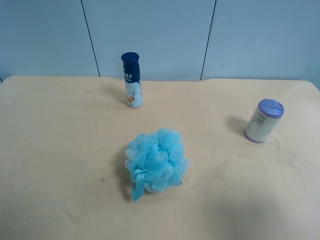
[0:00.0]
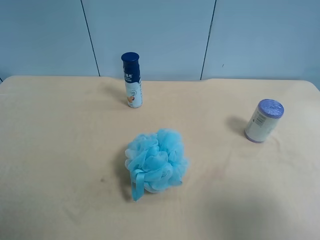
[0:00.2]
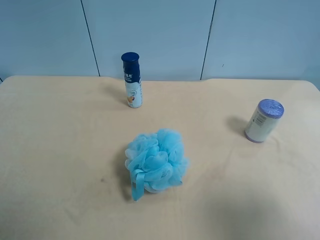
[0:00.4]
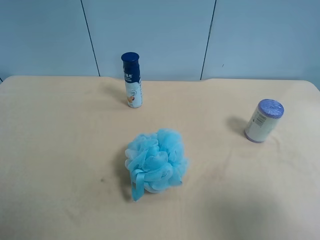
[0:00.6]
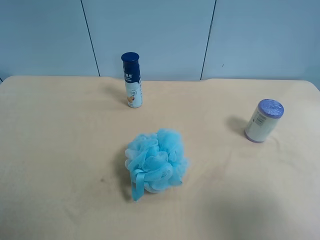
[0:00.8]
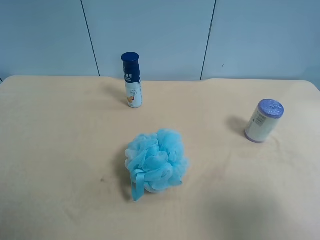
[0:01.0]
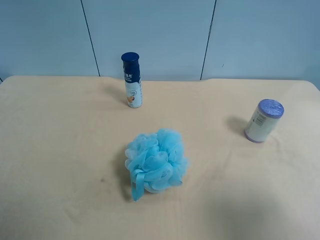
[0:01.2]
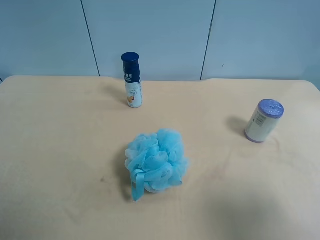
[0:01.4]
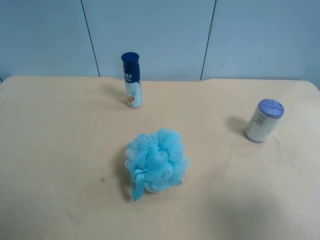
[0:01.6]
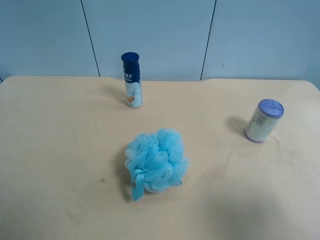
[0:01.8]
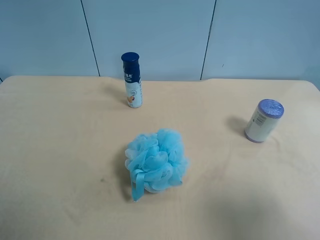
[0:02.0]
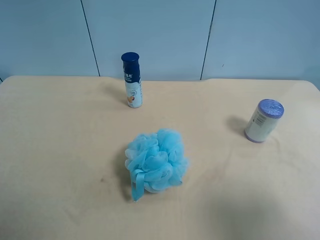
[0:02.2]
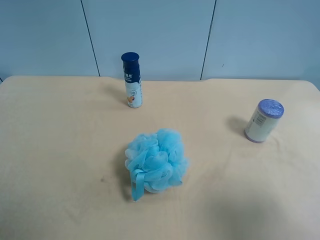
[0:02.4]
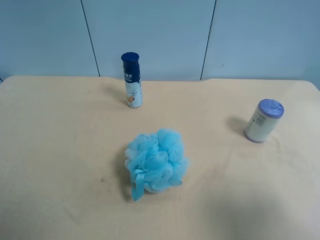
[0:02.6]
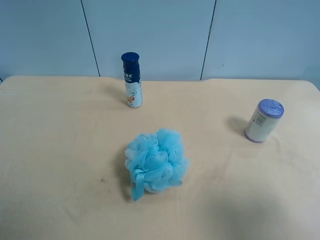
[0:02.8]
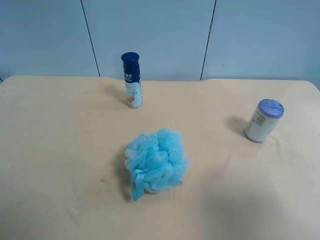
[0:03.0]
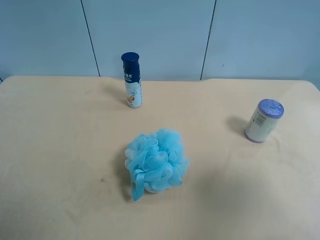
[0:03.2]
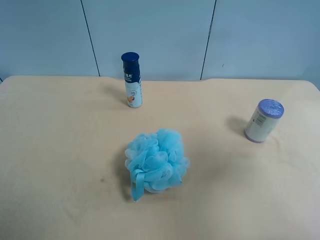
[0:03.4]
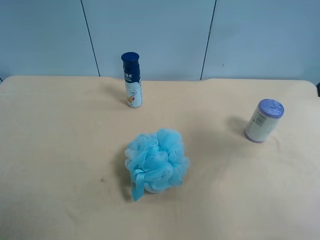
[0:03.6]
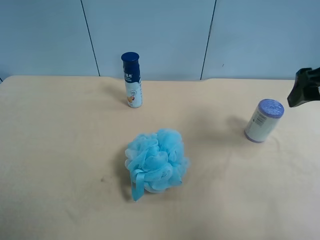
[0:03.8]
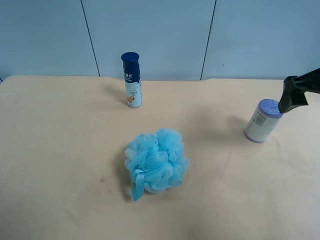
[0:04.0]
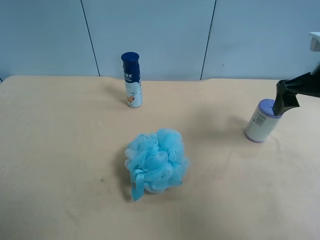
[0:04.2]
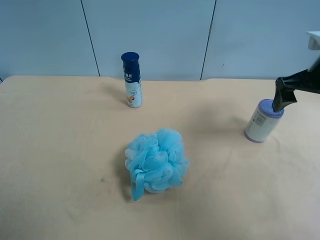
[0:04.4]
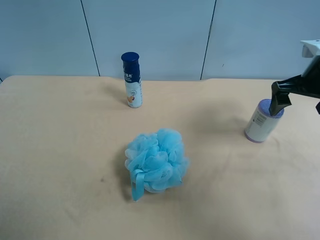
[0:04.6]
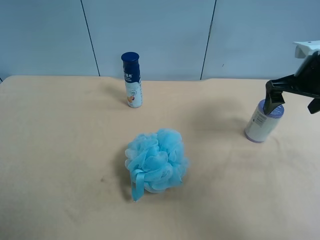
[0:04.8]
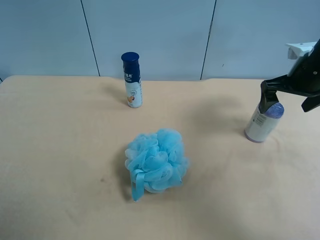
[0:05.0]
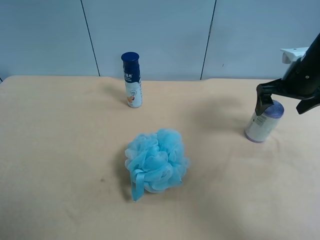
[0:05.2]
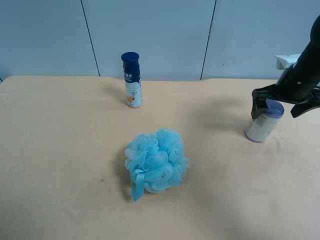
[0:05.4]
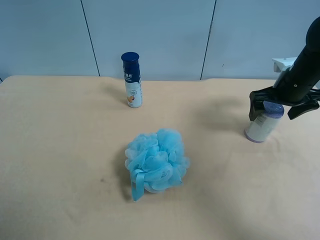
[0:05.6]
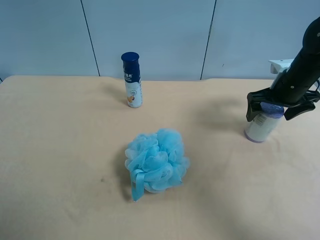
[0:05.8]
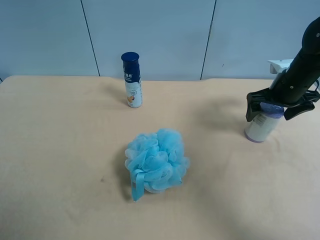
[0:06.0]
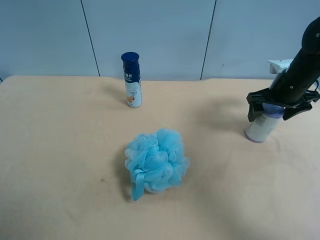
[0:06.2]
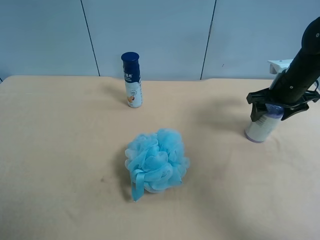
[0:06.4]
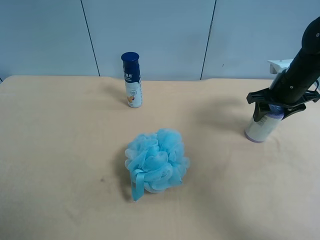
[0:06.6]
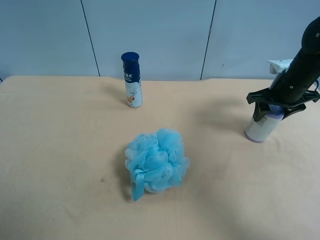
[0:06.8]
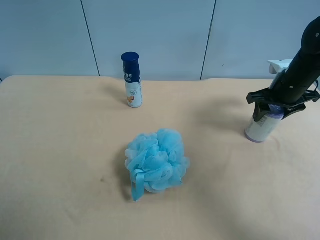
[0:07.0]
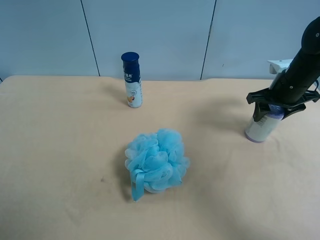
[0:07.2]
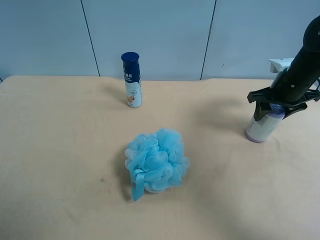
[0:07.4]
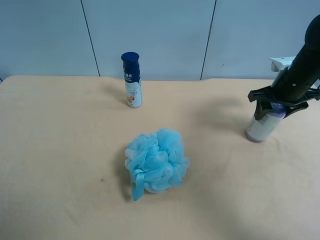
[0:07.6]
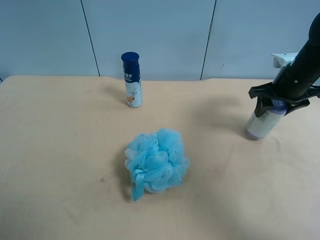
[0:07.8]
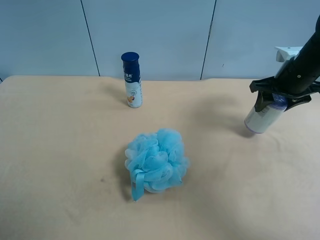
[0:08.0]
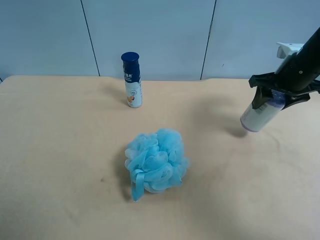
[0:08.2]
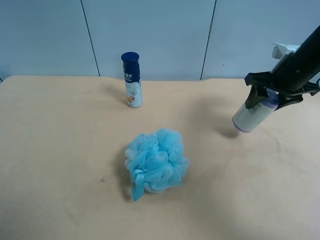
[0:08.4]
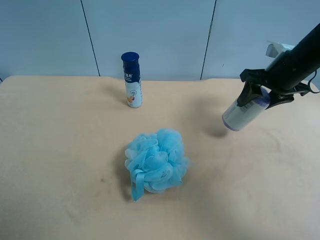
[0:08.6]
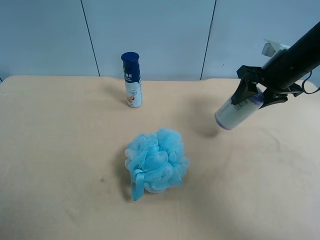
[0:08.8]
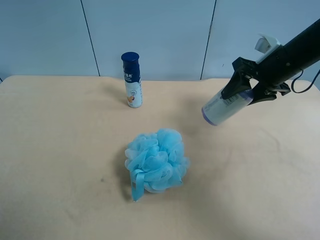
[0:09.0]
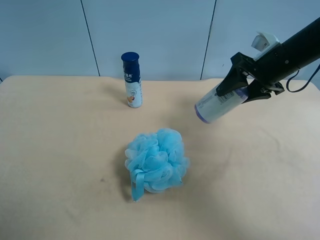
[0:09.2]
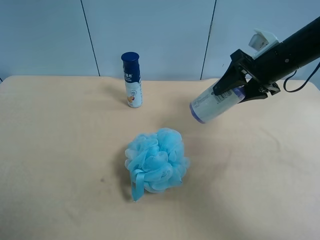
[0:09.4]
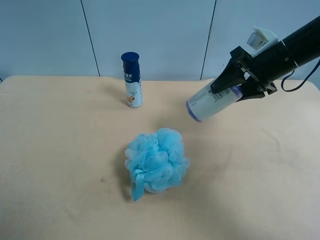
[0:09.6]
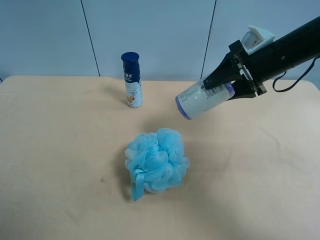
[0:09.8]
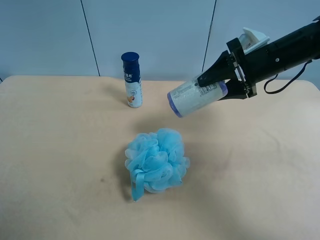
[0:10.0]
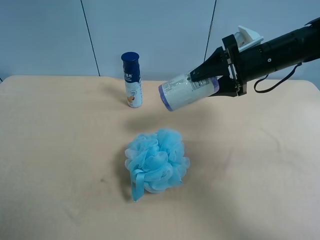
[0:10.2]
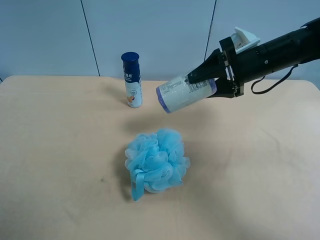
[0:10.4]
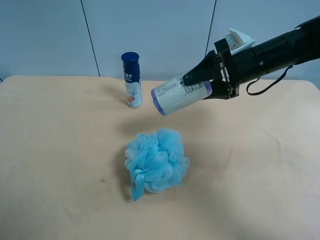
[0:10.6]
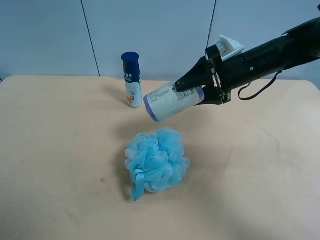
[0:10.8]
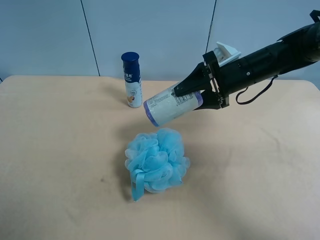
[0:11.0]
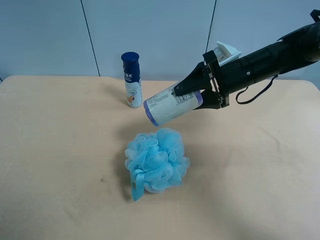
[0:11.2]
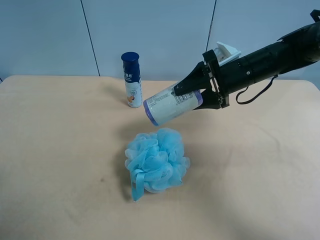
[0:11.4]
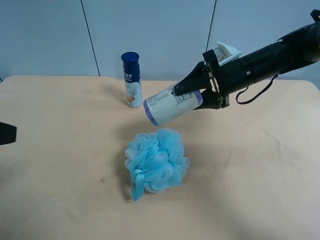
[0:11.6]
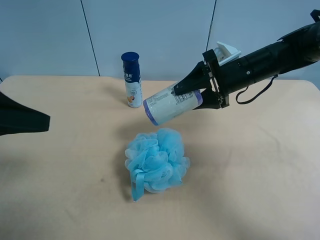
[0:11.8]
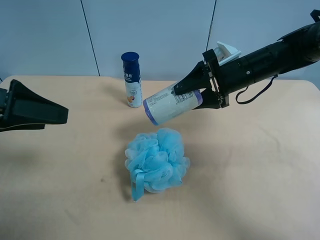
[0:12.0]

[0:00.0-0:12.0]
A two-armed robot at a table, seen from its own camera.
Task of the whole recording: use the right gripper to pick up the item and transfer it from the right gripper to the left gripper.
0:00.0 to 0:01.6: The two grippers keep their place.
0:03.0 to 0:04.4: The right gripper heads forward, covering some 25 cm.
0:04.4 to 0:06.0: The right gripper heads downward and forward, covering approximately 10 cm.
0:06.0 to 0:07.6: The right gripper closes its fingers.
0:07.6 to 0:09.0: The right gripper moves some 5 cm.
0:10.4 to 0:12.0: The left gripper shifts roughly 20 cm forward.

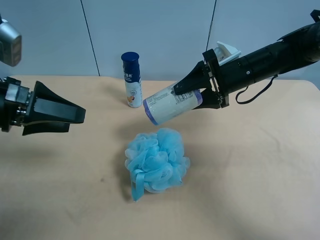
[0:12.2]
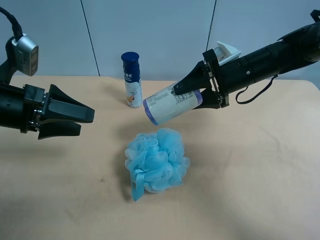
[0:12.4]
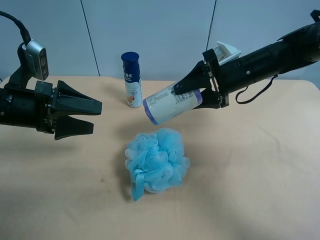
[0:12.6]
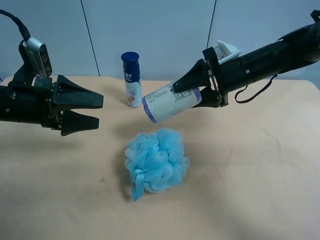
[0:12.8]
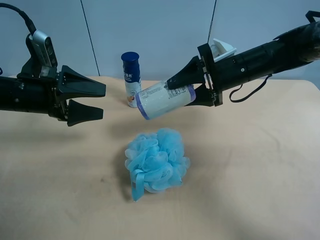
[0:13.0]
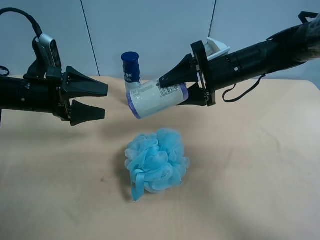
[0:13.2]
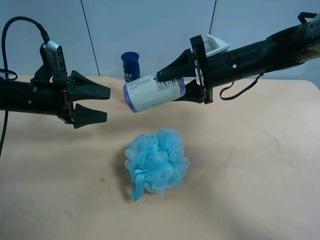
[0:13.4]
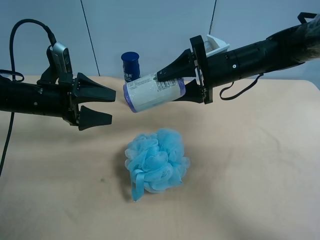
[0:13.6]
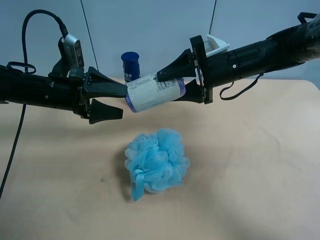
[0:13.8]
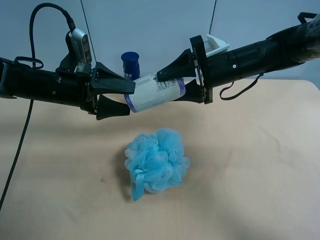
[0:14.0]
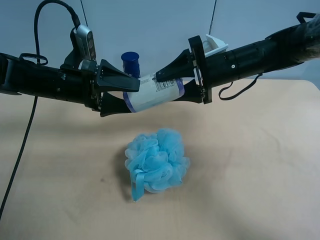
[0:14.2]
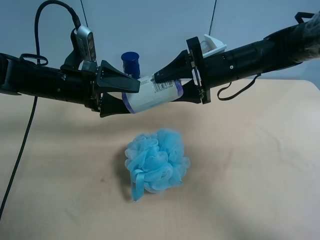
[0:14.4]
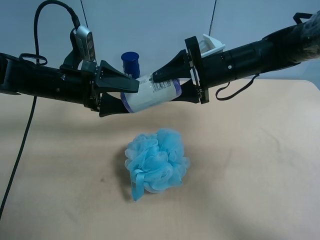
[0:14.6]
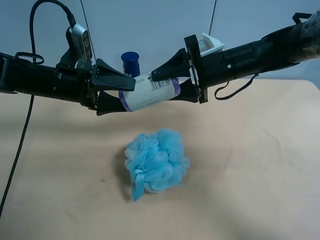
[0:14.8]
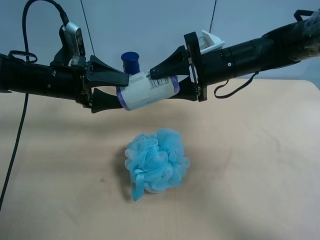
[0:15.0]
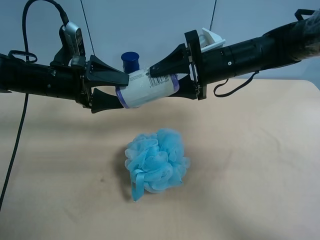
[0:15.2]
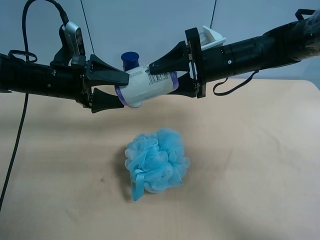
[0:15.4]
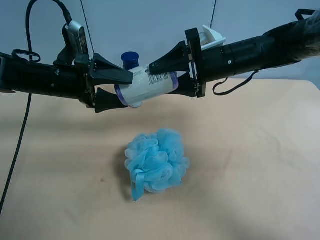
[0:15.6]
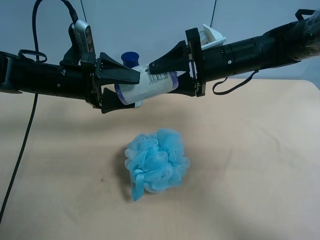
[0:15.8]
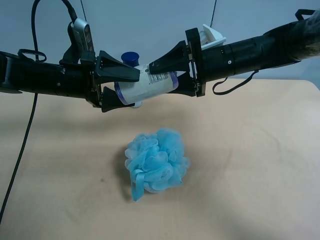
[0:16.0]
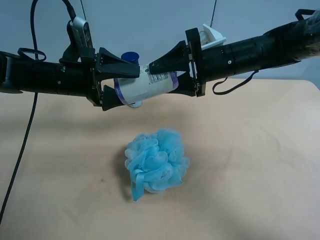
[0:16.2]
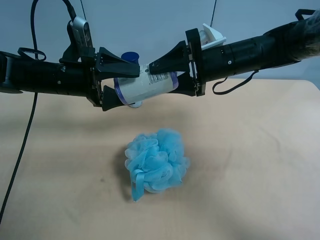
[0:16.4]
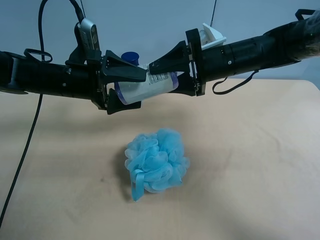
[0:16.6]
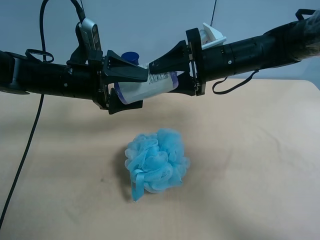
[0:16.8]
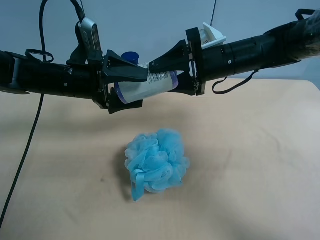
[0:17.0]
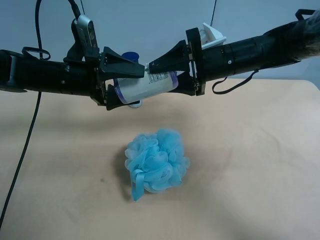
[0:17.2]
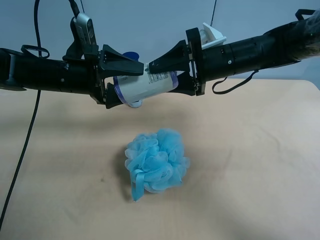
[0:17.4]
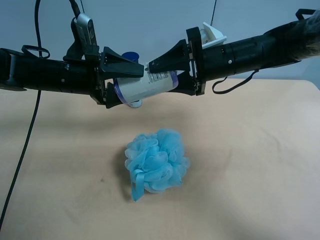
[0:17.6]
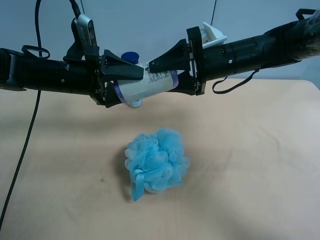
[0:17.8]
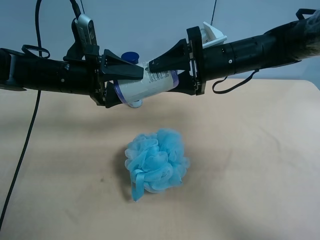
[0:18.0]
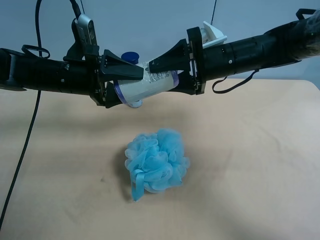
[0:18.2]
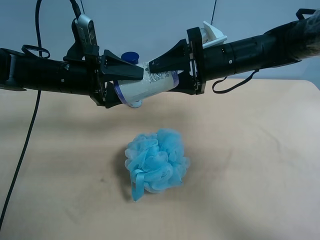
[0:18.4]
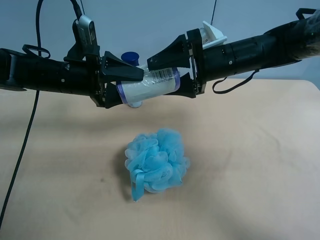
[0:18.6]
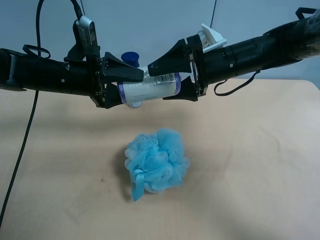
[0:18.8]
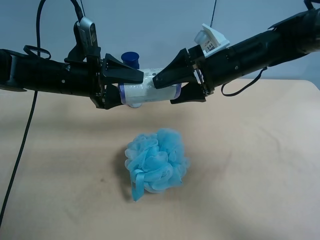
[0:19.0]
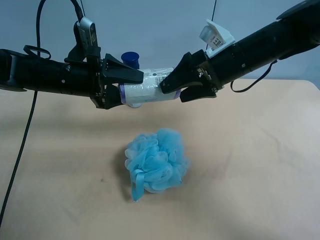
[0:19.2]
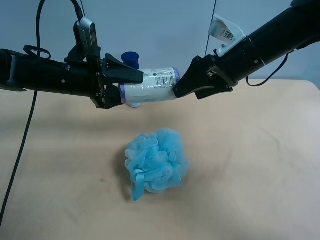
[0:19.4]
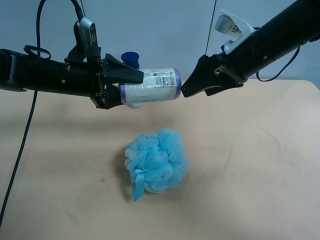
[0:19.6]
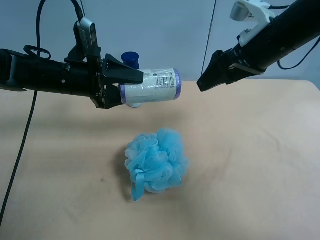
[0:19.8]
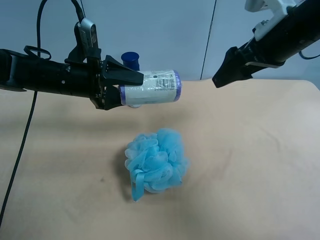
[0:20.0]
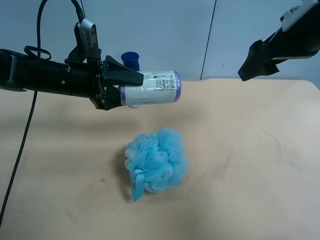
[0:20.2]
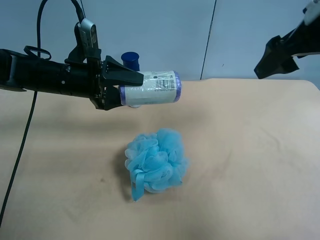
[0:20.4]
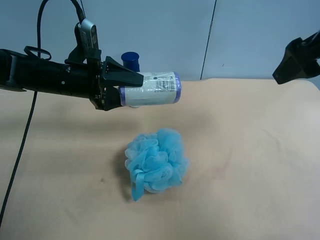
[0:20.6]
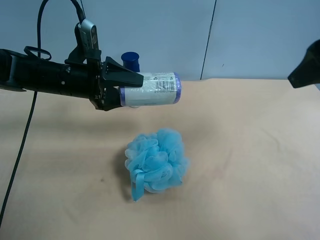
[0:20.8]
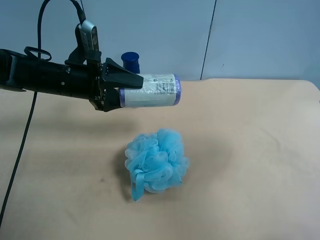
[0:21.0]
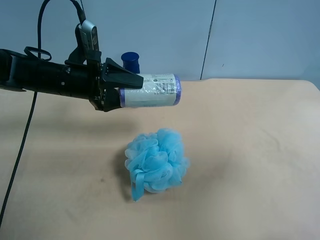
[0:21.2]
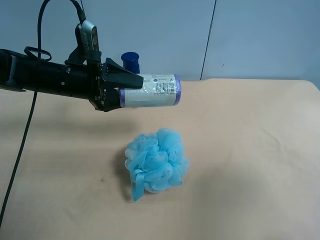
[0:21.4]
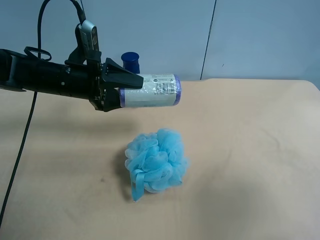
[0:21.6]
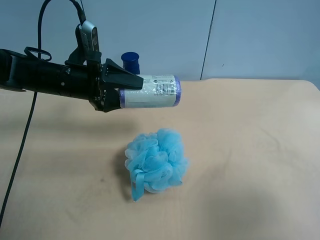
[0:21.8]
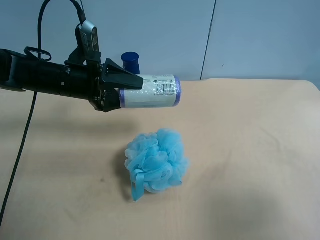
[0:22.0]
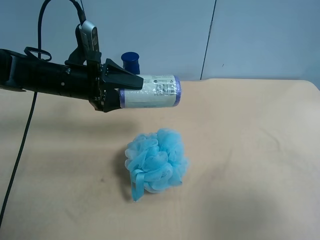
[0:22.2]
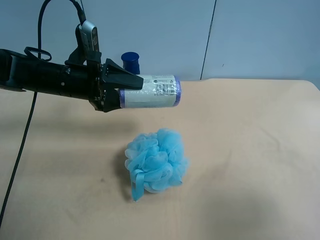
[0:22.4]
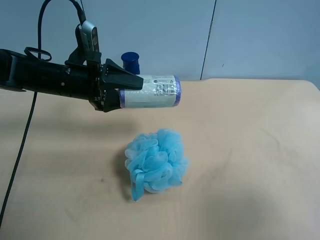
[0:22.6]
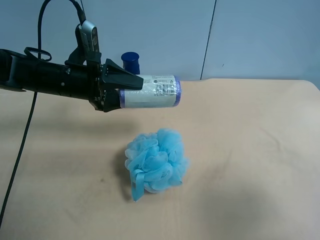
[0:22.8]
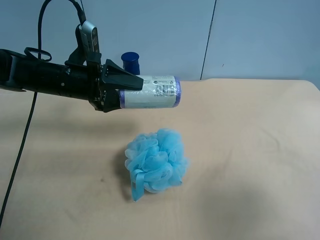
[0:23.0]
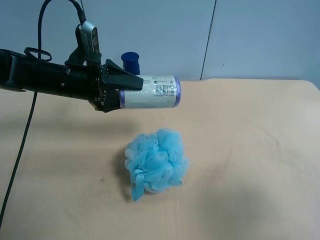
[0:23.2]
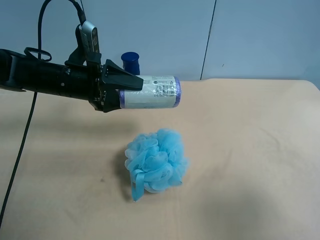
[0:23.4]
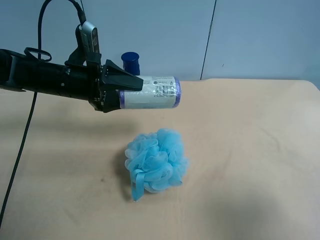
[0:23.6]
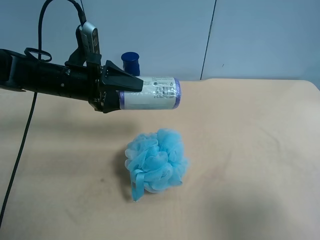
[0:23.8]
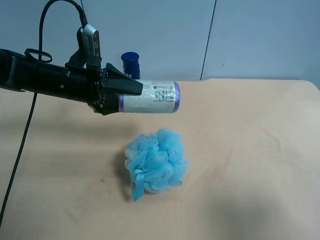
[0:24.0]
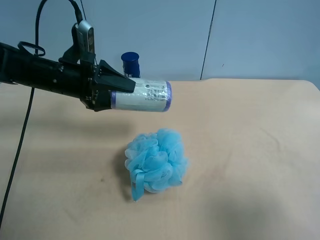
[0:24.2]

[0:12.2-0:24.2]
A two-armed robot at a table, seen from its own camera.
Task of the whole recording: use the right gripper to pick up the item and transfer it from the right gripper to the left gripper.
0:12.2 to 0:13.8: The left gripper heads forward and downward, covering roughly 10 cm.
0:13.8 to 0:16.6: There are only small adjustments of the grippers.
0:16.6 to 0:18.2: The left gripper closes.
0:18.2 to 0:19.8: The right gripper travels upward and to the right by about 10 cm, and opens up.
0:19.8 to 0:21.2: The right gripper travels backward and to the right by roughly 25 cm.
0:21.2 to 0:22.6: The right gripper shifts about 10 cm downward and backward.
0:22.6 to 0:24.2: The grippers make only small movements.
